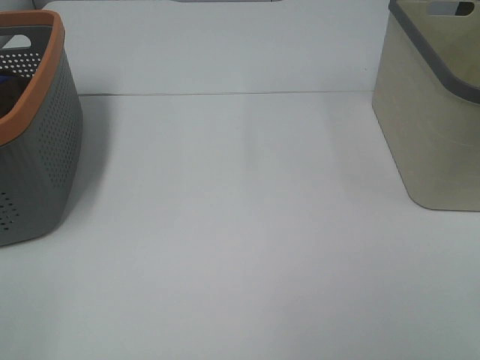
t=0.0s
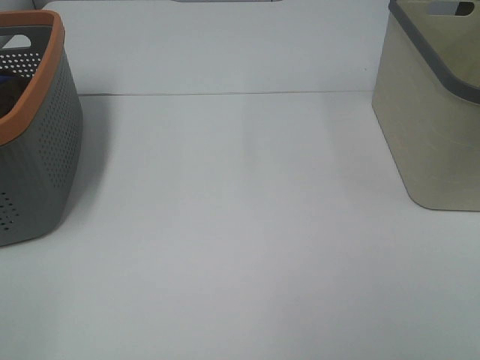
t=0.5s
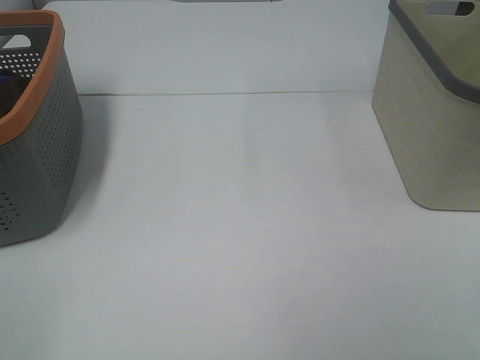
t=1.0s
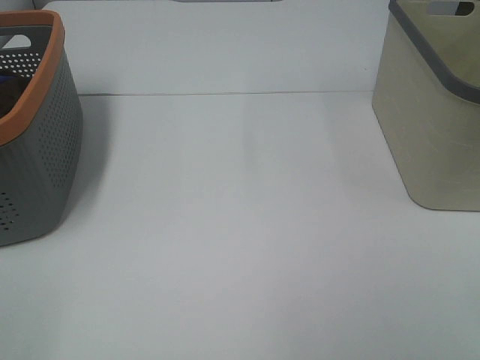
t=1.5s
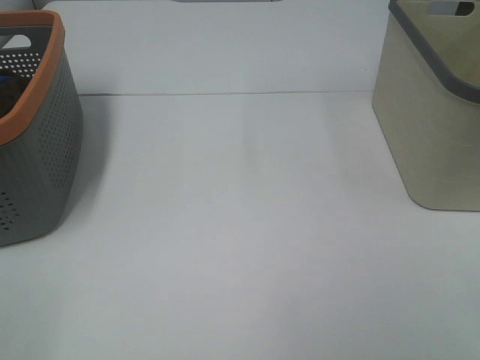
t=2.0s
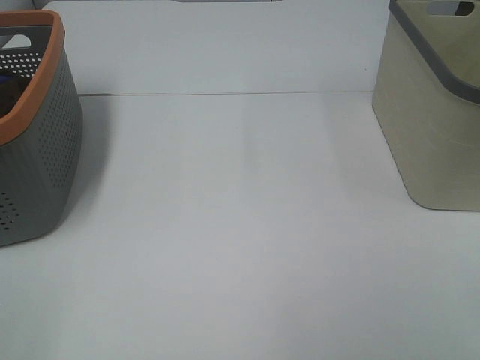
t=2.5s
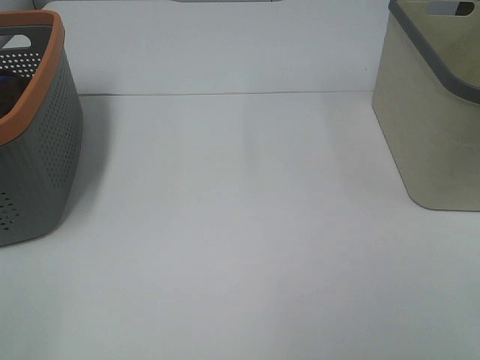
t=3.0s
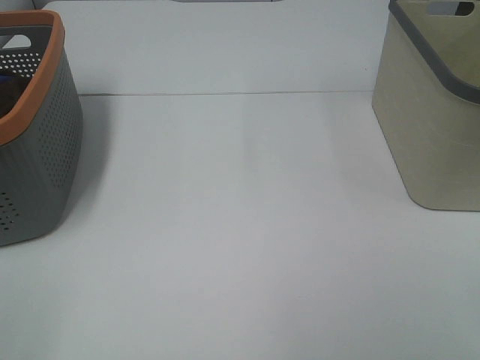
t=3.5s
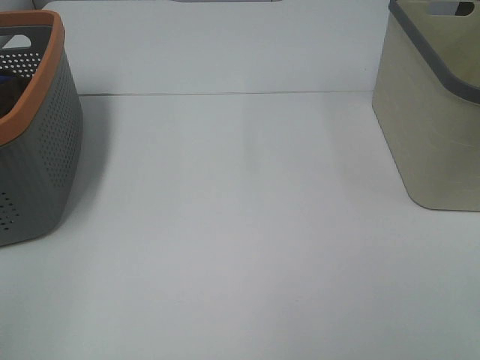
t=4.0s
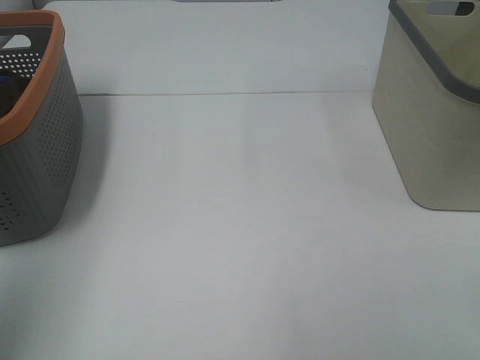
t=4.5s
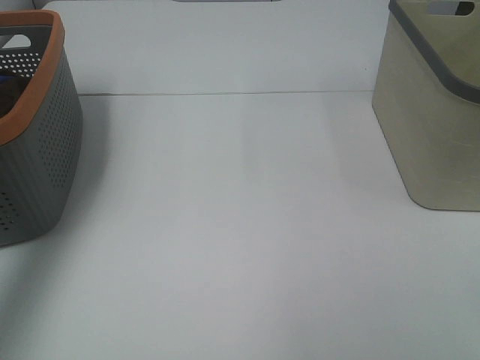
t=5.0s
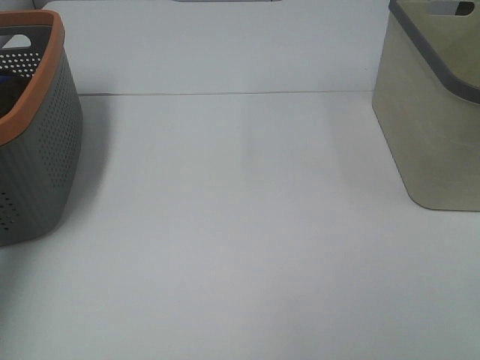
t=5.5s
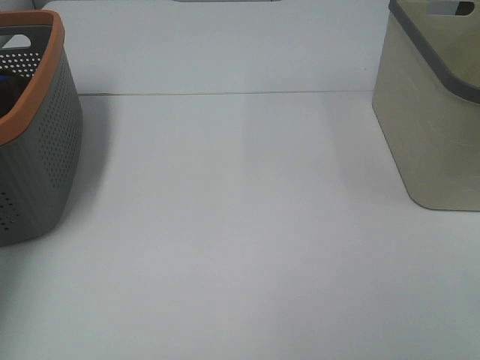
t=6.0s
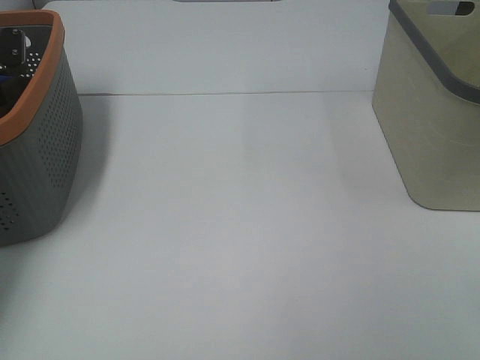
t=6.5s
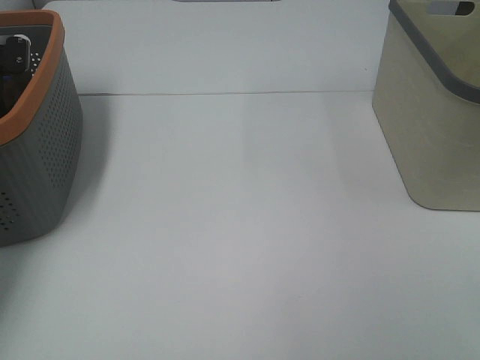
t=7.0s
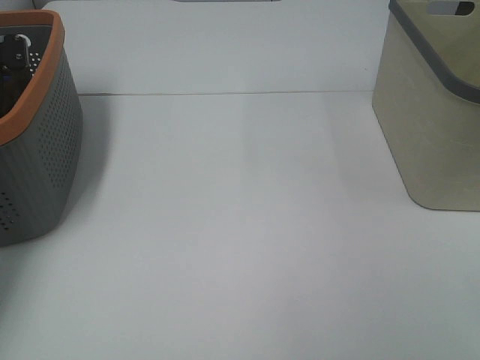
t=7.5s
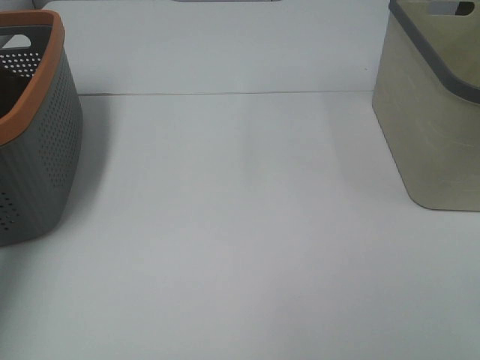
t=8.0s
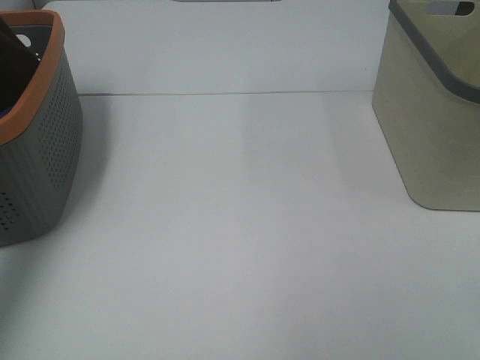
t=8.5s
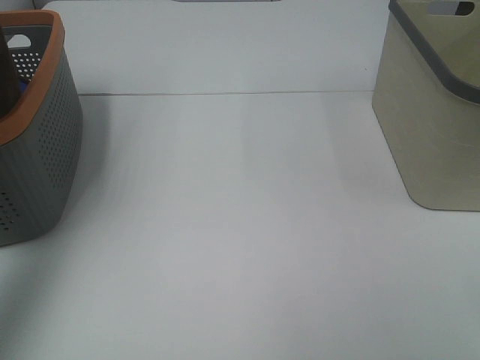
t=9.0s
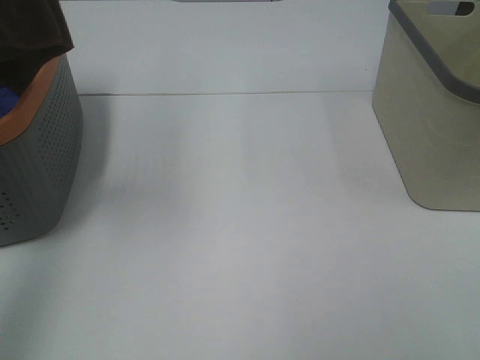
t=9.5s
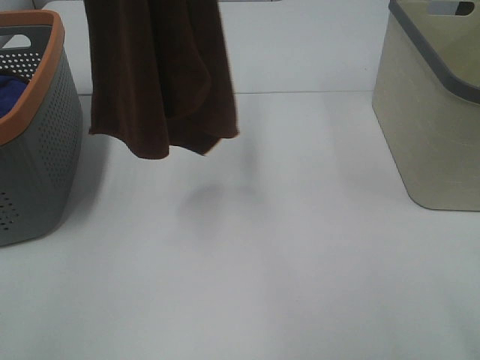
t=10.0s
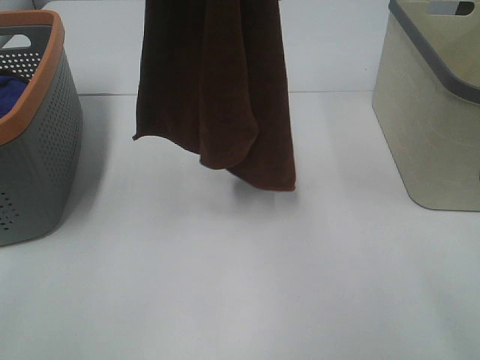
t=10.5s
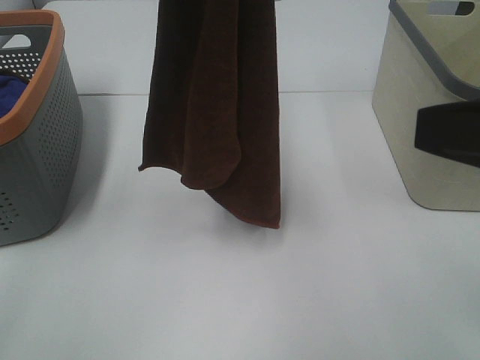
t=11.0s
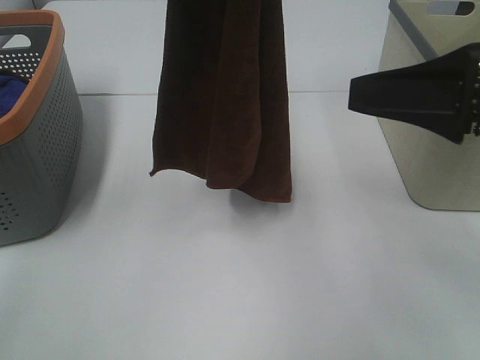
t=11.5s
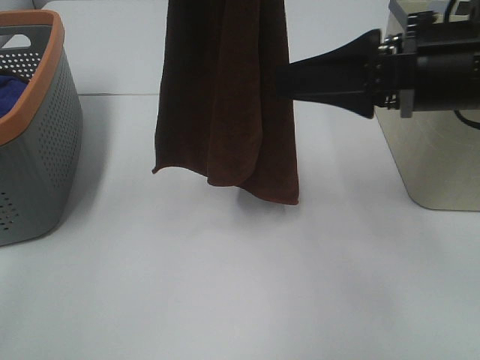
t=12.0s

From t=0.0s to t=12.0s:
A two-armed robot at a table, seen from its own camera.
Task of the whole recording: Remove the towel and place it.
From t=4.0s to t=6.0s: The left gripper shifts about 40 cm forward.
From t=8.0s to t=10.0s: The right gripper travels forward by approximately 5 cm, while the left gripper moves to the right, upward and backward, roughly 30 cm.
From t=10.0s to t=12.0s: The right gripper heads forward, covering roughly 20 cm, while the left gripper moves to the right and downward, about 10 cm.

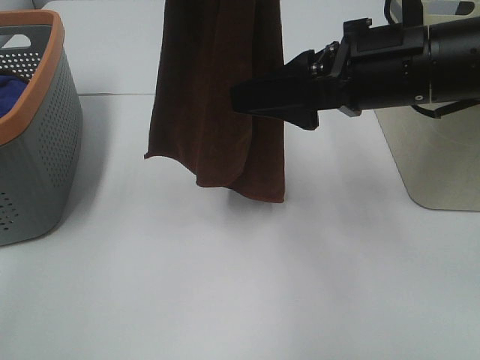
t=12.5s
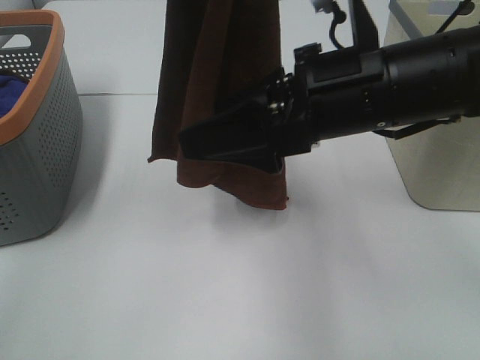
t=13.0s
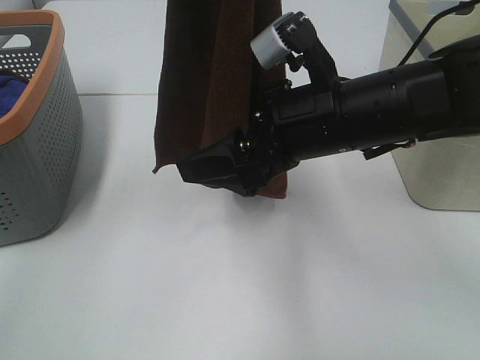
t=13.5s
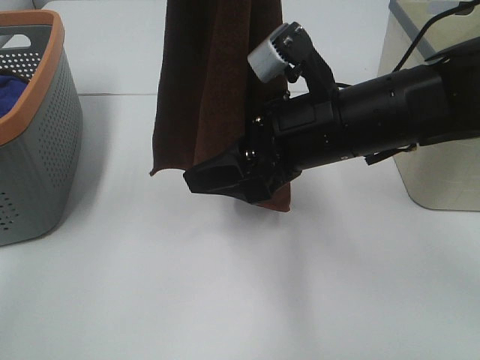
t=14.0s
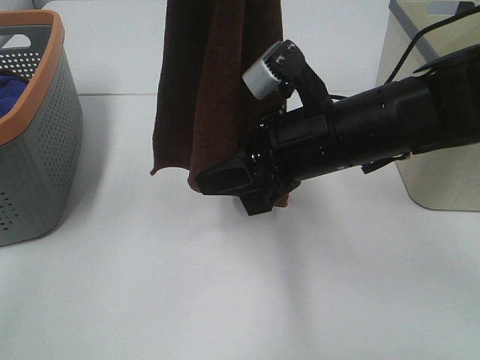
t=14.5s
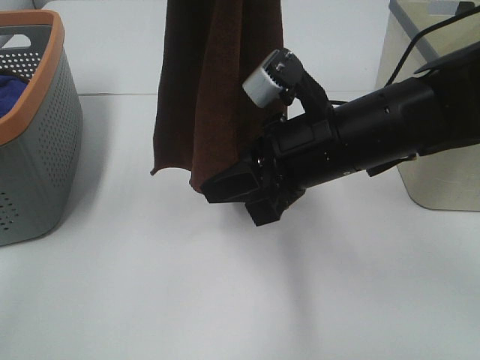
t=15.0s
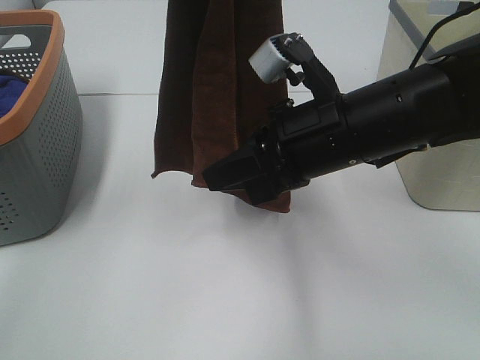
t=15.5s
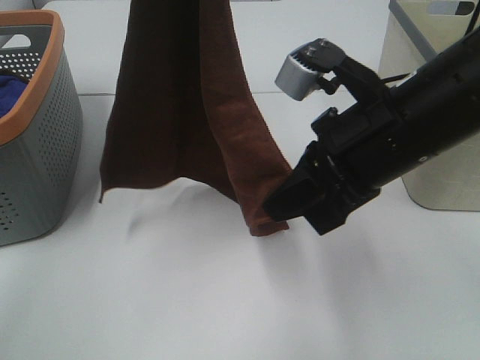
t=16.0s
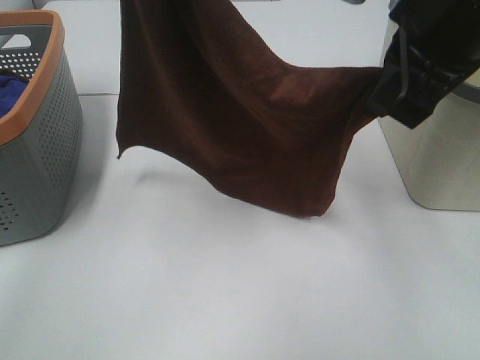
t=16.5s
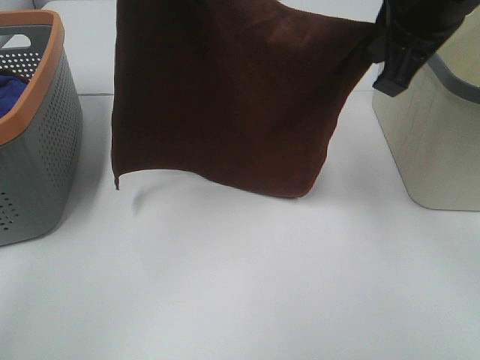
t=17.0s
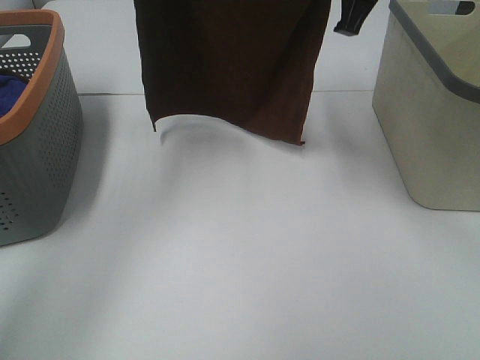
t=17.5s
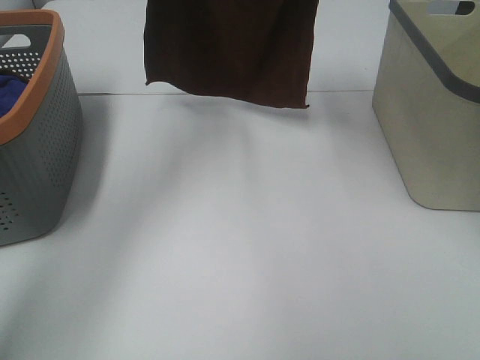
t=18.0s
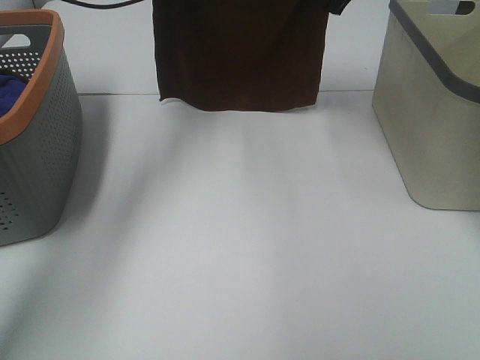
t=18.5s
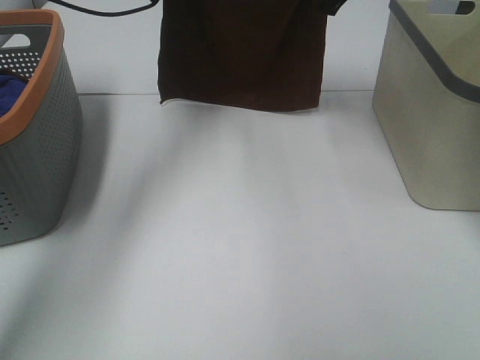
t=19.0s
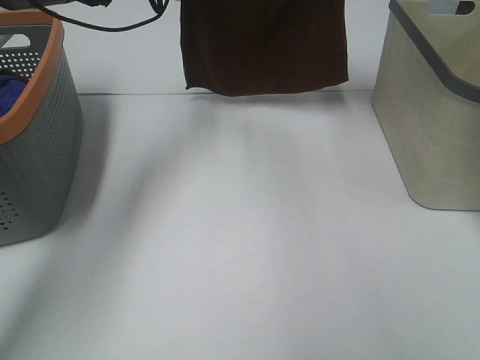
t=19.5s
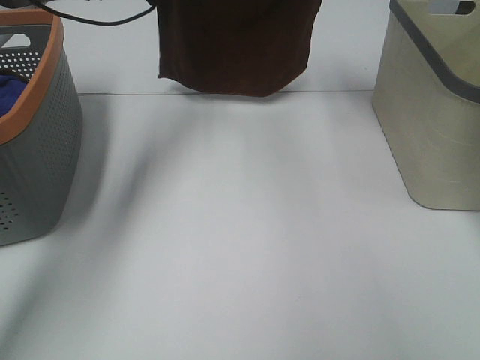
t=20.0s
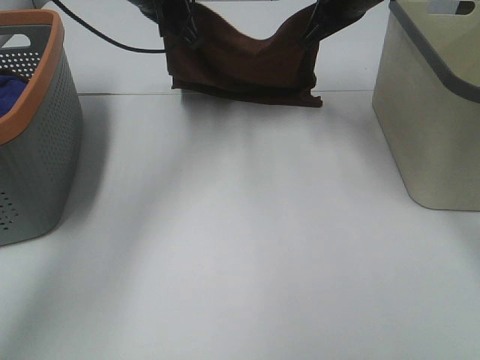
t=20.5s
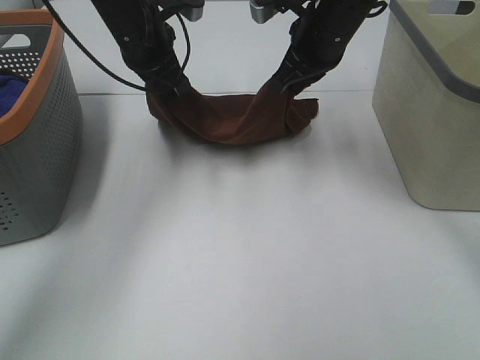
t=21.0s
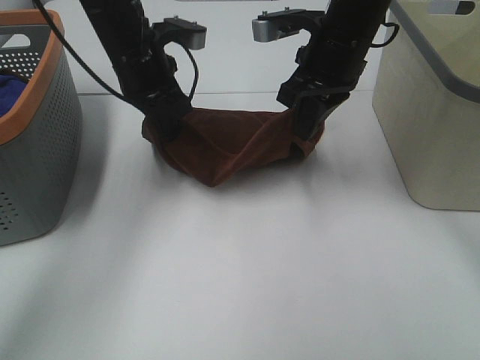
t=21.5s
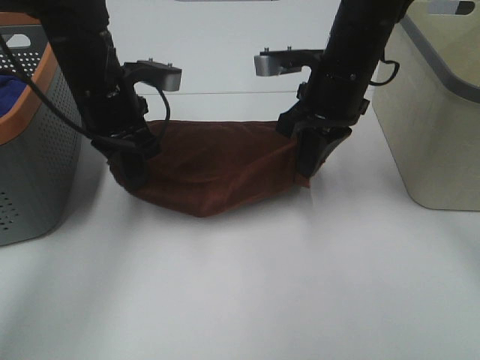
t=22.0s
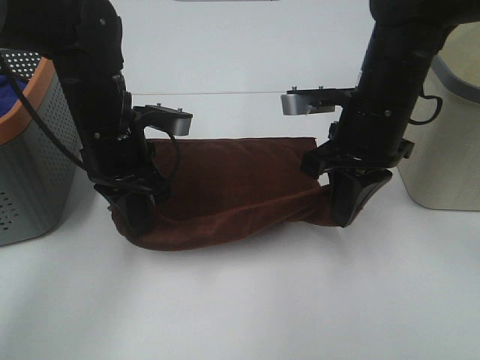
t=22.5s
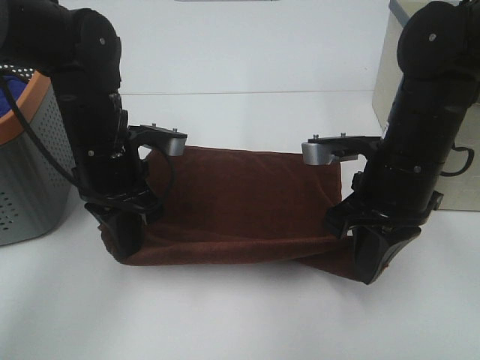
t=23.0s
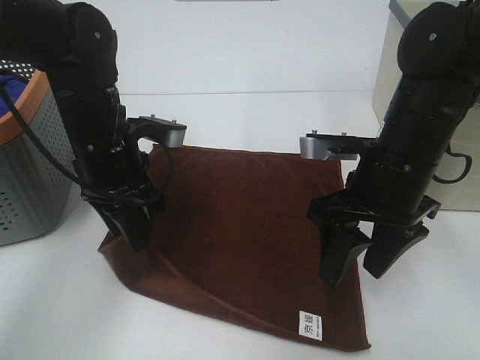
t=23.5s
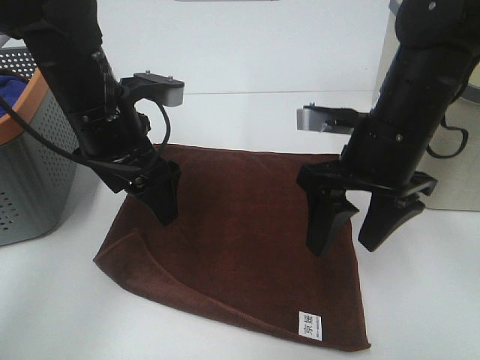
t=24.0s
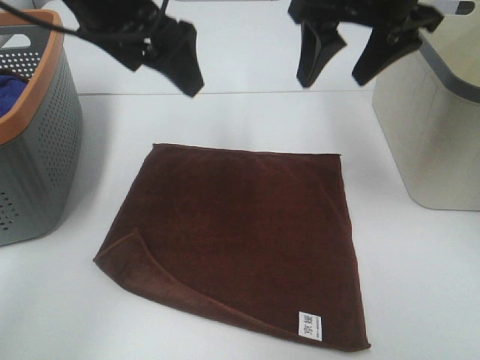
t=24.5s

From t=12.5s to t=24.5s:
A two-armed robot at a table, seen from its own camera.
Task of the whole recording: Remove the towel and place it.
Step, from t=14.0s to t=18.5s: Left hand: spread the brown towel flat on the table.
Step, from t=14.0s to t=18.5s: Right hand: spread the brown towel flat on the table.
From t=12.5s to t=14.5s: The right gripper shifts some 10 cm downward and to the left, and closes its fingers.
From t=14.5s to t=16.5s: The right gripper shifts about 15 cm upward, and closes up, while the left gripper shifts some 5 cm downward.
From t=16.5s to t=18.5s: The left gripper travels forward and downward by some 20 cm. The right gripper moves forward, some 25 cm.
From t=18.5s to t=20.5s: The left gripper moves roughly 5 cm, while the right gripper moves about 5 cm.
From t=20.5s to t=22.5s: The left gripper goes roughly 20 cm backward and downward. Meanwhile the right gripper heads backward, covering roughly 15 cm.
From t=22.5s to t=24.5s: Both grippers move upward, about 15 cm. The left gripper opens. The right gripper opens.

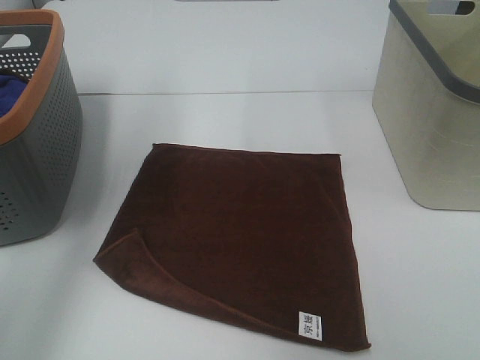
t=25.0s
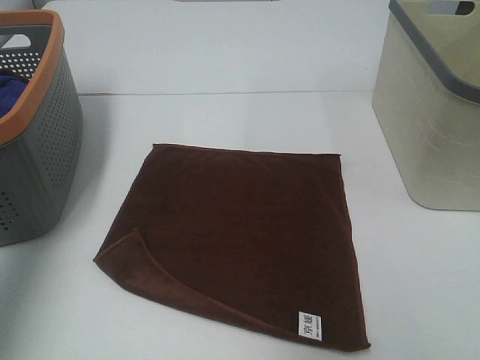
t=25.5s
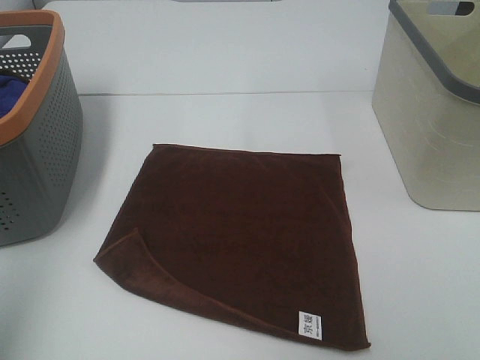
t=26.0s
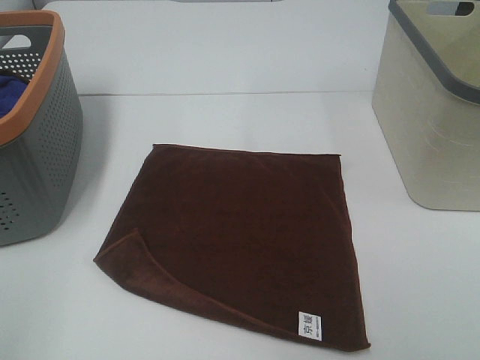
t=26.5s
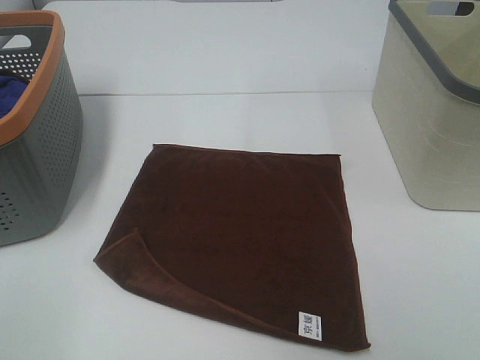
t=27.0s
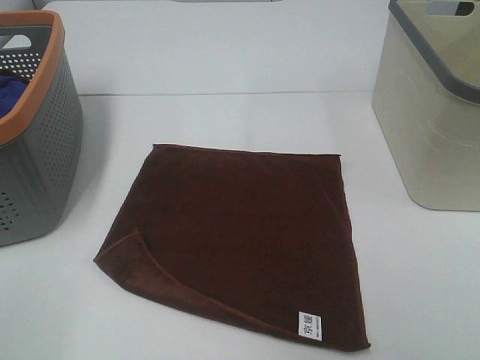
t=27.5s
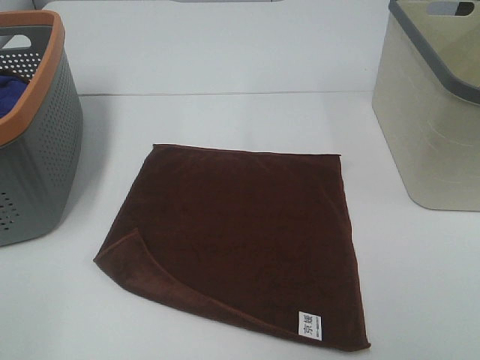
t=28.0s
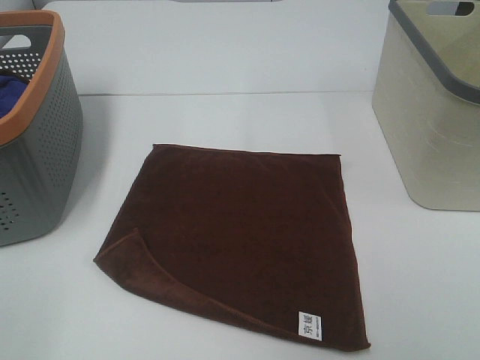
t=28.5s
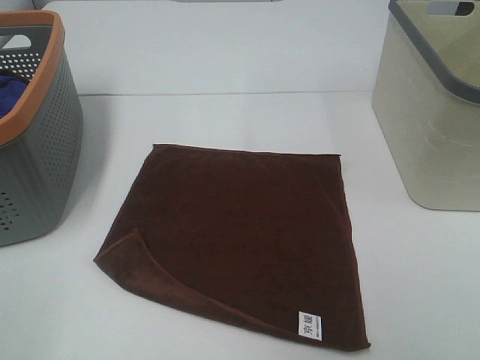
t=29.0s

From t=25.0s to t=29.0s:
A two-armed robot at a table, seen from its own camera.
Task of the whole recording: Remove the towel and place it.
From t=25.0s to t=27.0s: The left gripper heads backward, covering about 40 cm.
